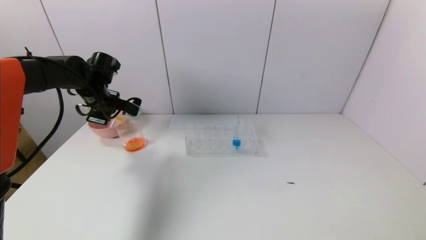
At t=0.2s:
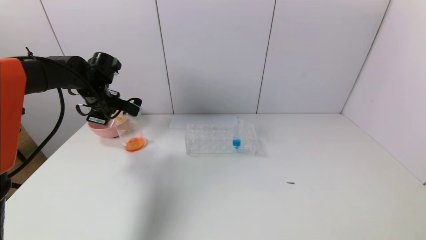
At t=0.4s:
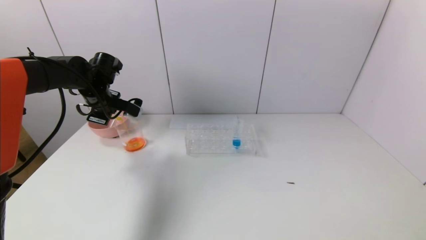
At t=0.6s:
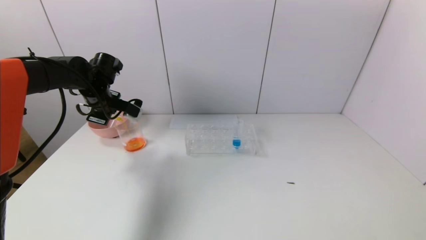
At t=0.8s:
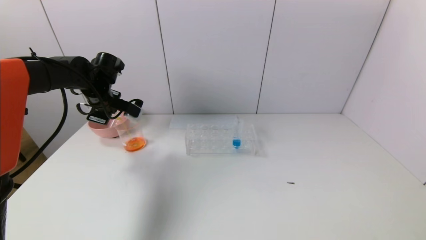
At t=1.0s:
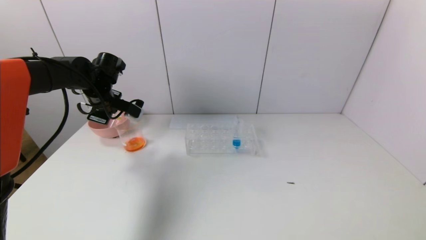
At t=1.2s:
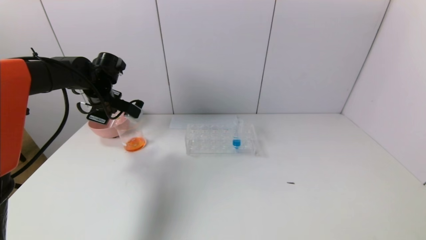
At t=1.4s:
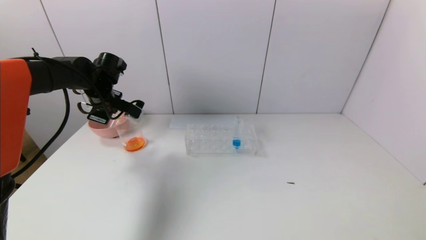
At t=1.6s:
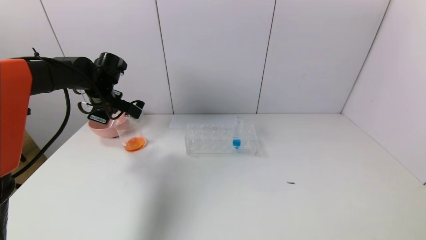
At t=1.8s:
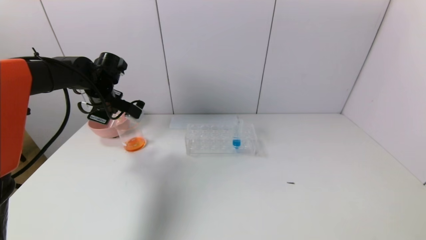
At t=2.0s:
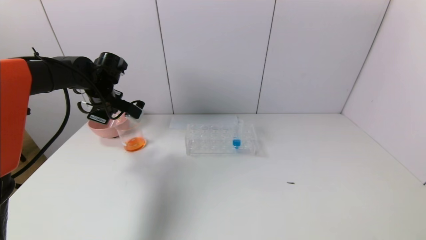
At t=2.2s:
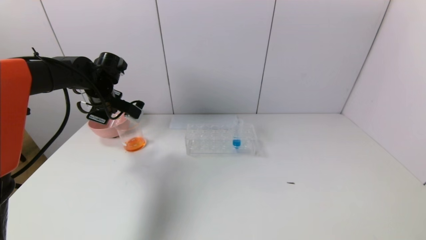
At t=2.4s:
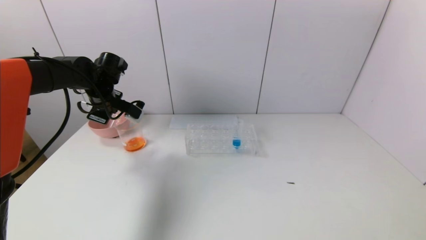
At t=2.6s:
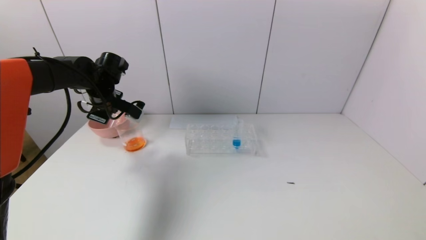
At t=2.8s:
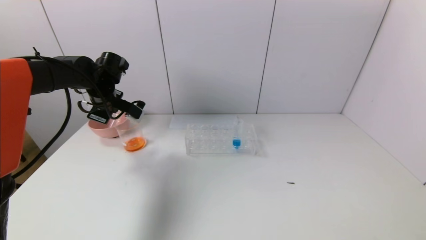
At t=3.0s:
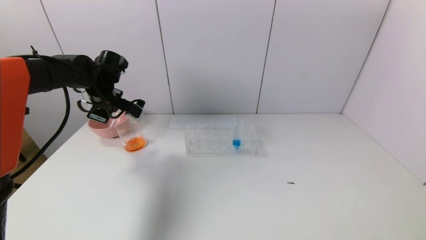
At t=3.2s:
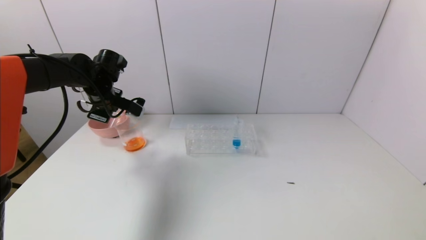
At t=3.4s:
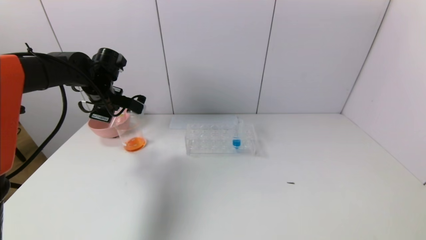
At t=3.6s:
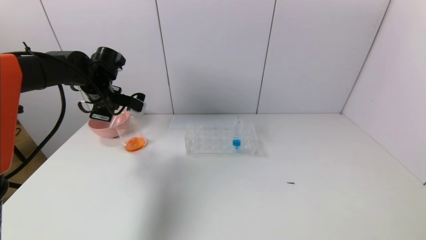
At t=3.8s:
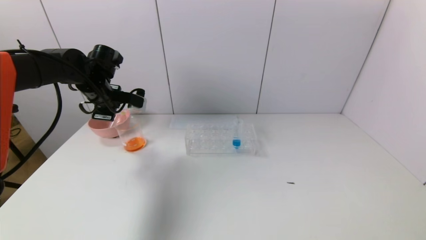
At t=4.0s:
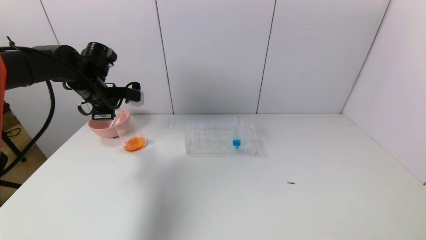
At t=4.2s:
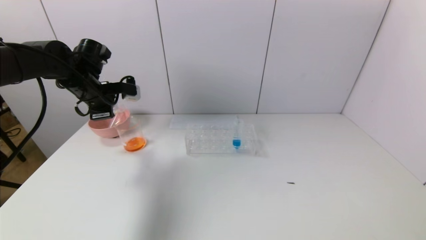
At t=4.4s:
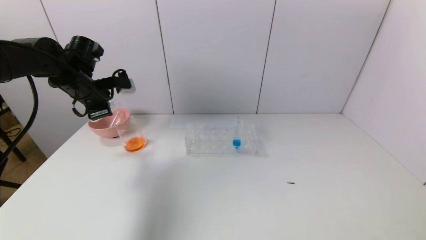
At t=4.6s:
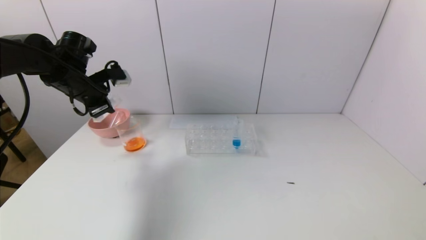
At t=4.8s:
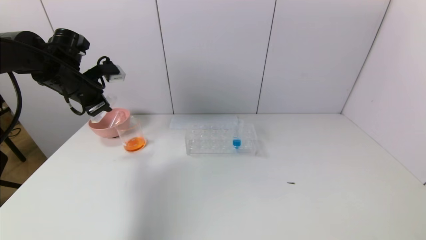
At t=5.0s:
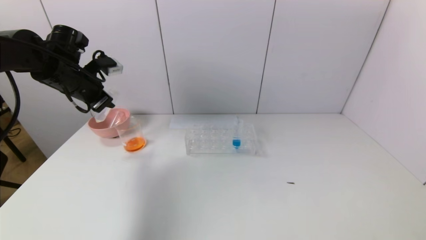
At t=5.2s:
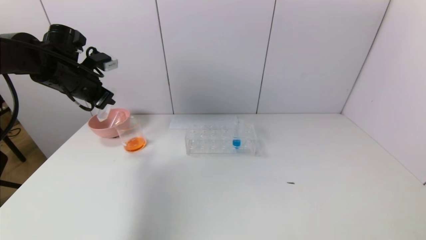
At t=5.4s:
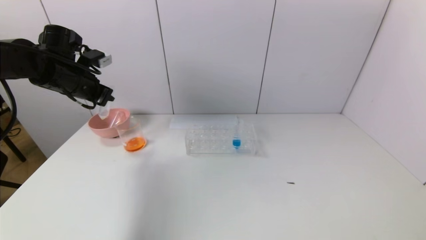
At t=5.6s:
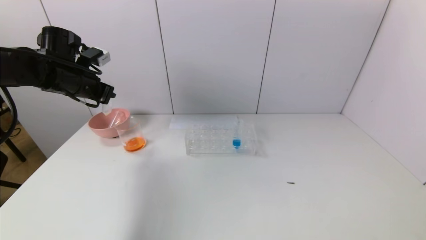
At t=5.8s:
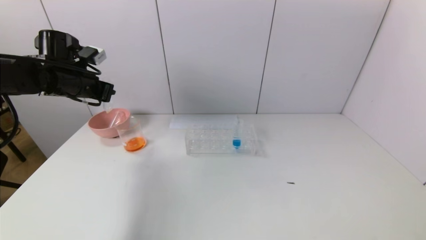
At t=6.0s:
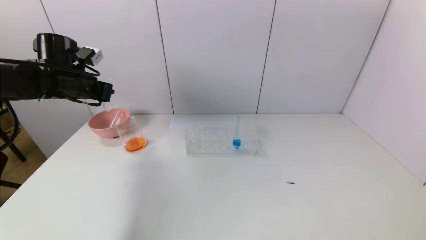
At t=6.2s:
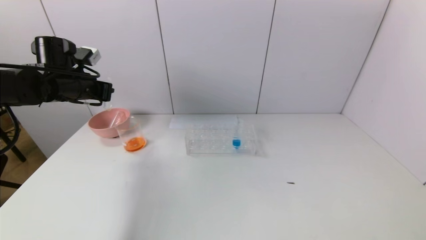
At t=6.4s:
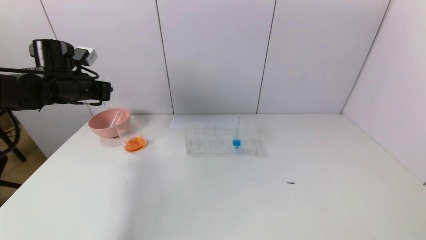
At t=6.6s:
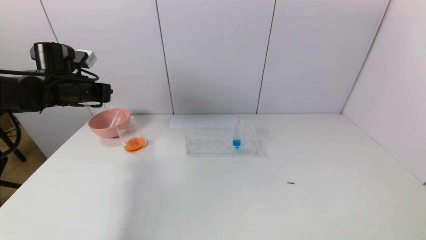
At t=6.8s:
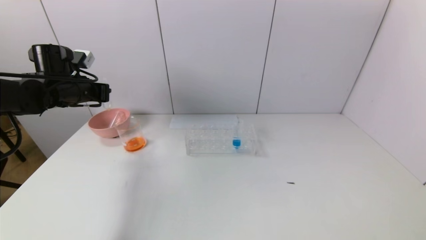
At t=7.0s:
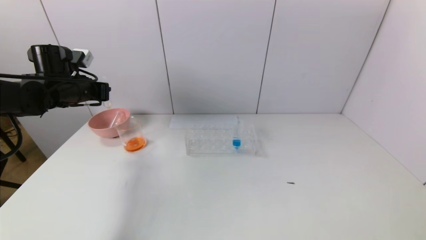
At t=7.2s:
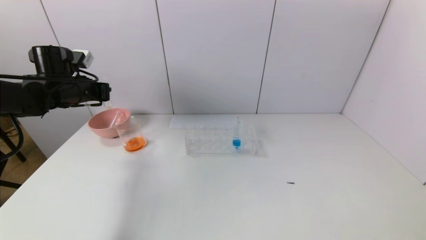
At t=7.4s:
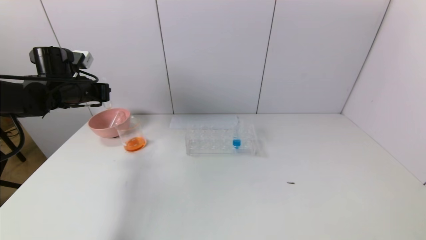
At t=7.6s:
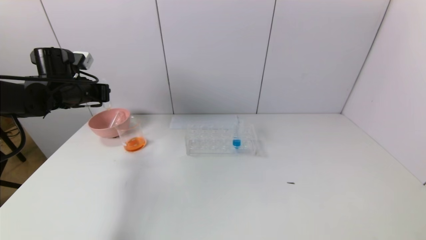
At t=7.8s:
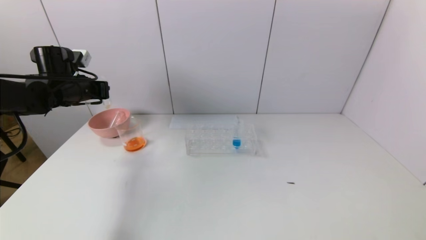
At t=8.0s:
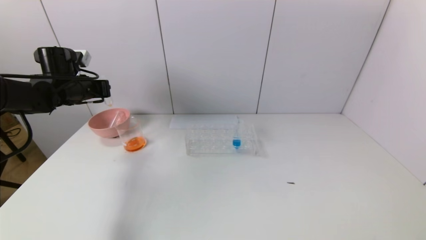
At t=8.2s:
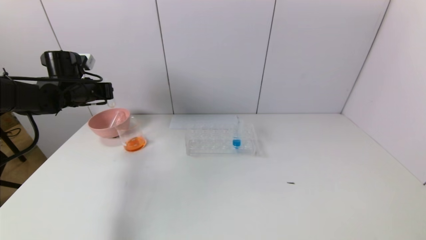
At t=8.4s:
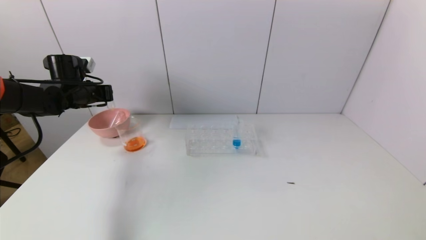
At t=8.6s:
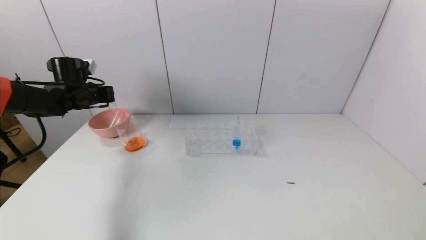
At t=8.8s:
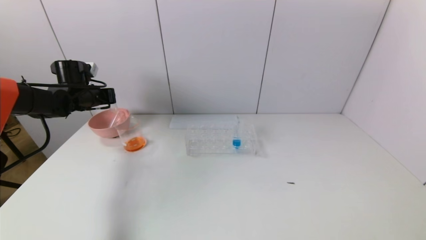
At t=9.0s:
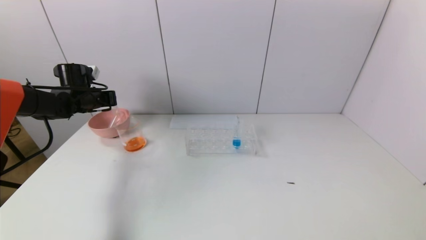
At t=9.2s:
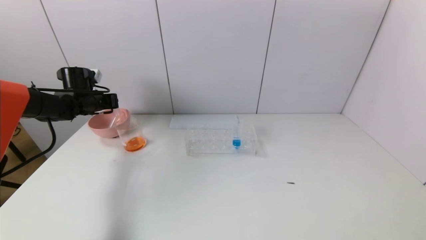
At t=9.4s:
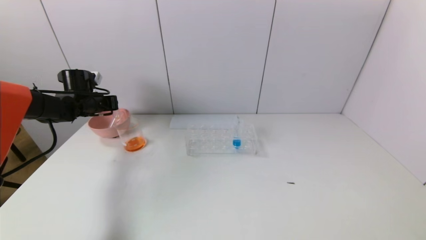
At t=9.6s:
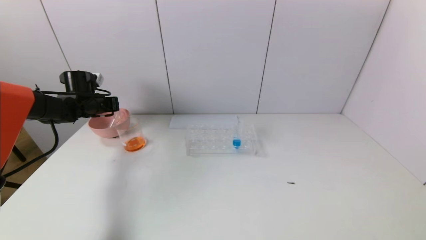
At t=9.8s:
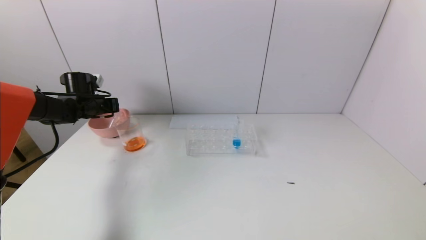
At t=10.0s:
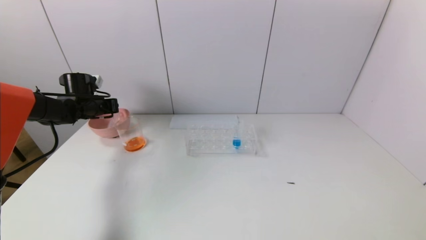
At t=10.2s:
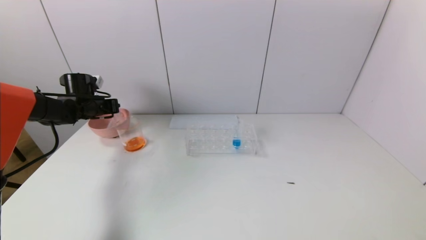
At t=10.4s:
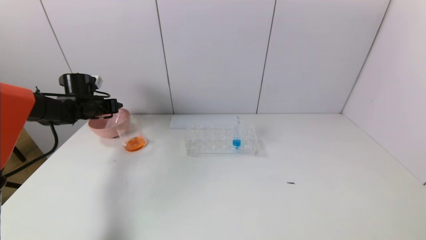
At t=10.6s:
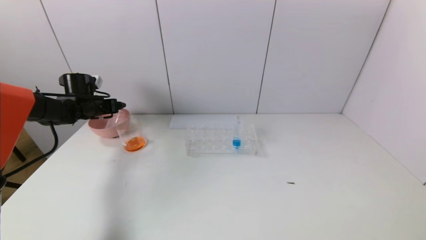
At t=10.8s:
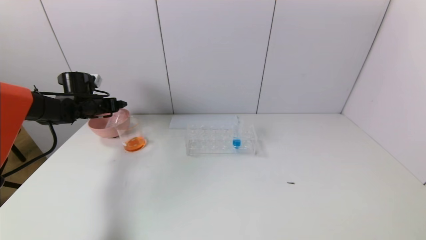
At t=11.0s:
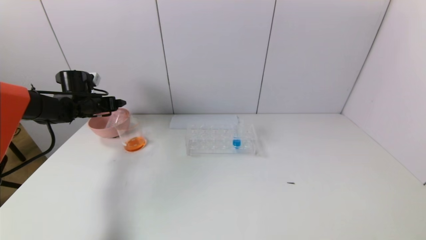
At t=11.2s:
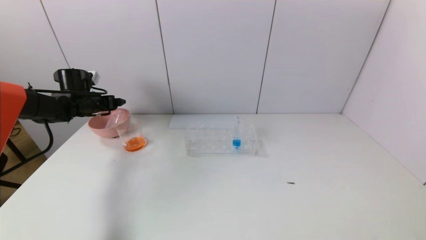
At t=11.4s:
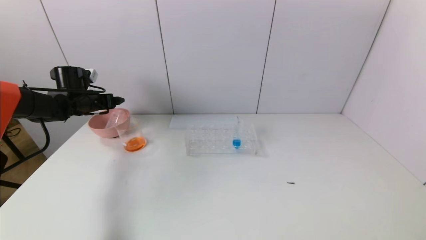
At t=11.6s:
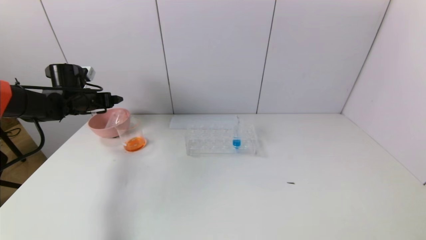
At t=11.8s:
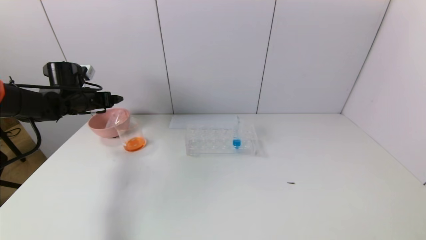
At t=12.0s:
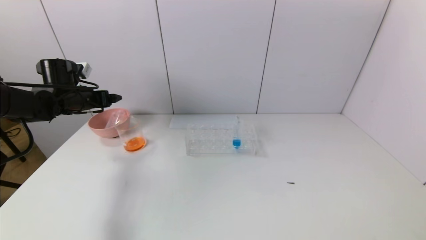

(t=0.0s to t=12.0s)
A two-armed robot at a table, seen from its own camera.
Task of the whole recording: pick up the test tube with yellow pigment and the test tube with red pigment by grippers and pour them into the beaker.
Step, t=0.0s - t=3.8s: Pour the yellow reagent into the graduated cylinder with the left gripper.
Step, t=4.0s - t=10.6s: Place the test tube into the pink bowl with the left gripper.
t=0.0s - t=1.6s: The grippers move only a little.
t=1.6s - t=3.0s: Neither gripper changes place.
t=3.0s - t=4.4s: The left gripper moves about 5 cm.
t=6.0s - t=7.6s: There are only small adjustments of the grippers.
t=7.6s - t=9.0s: The left gripper travels forward by some 5 cm.
t=9.0s - t=10.4s: The left gripper opens its fingers.
t=10.4s - t=12.0s: The left gripper is displaced backward by about 5 cm, and opens its fingers.

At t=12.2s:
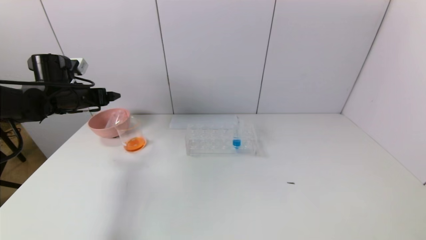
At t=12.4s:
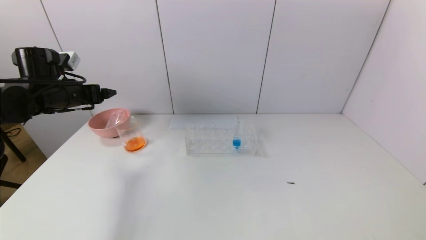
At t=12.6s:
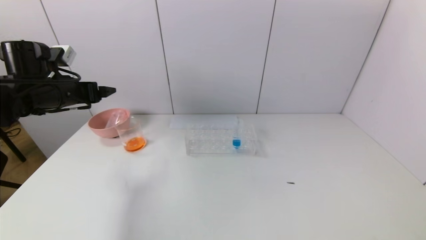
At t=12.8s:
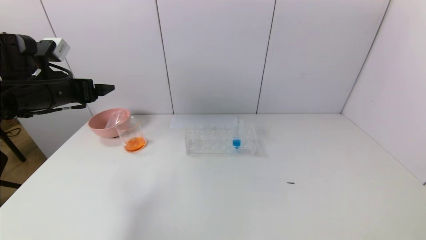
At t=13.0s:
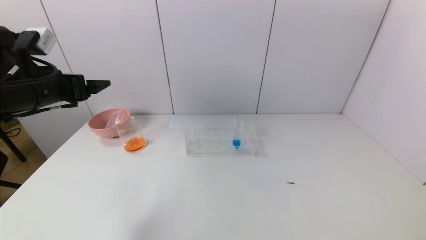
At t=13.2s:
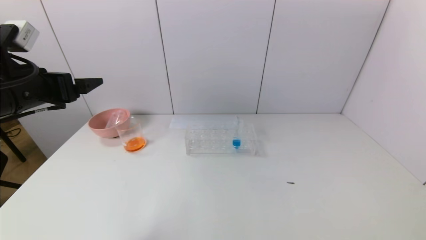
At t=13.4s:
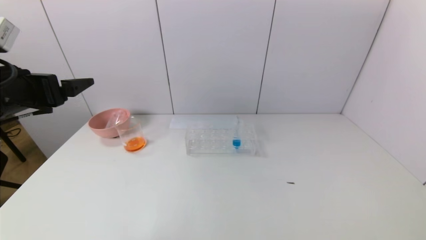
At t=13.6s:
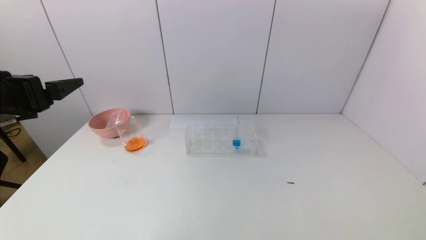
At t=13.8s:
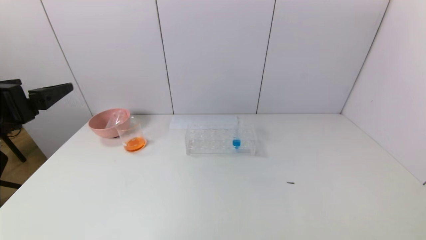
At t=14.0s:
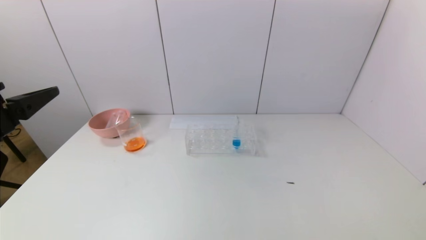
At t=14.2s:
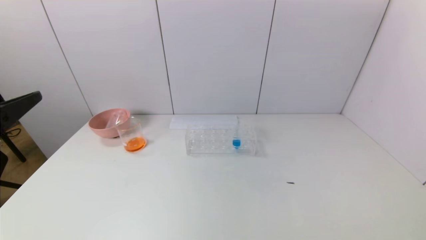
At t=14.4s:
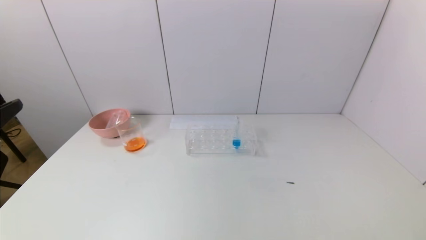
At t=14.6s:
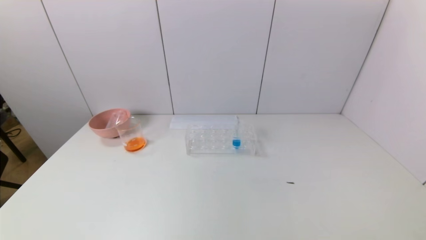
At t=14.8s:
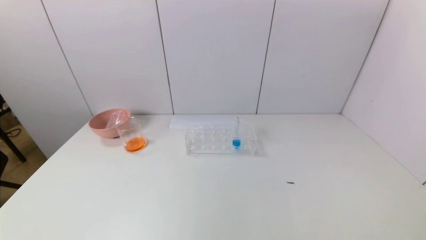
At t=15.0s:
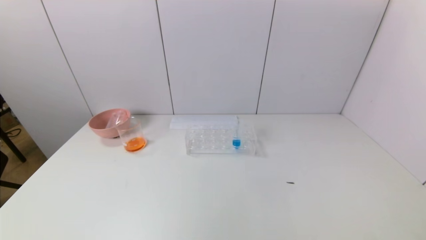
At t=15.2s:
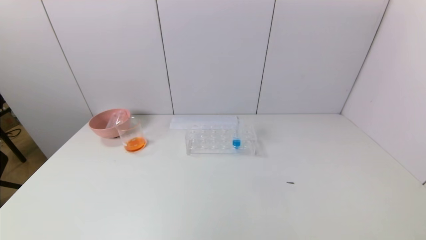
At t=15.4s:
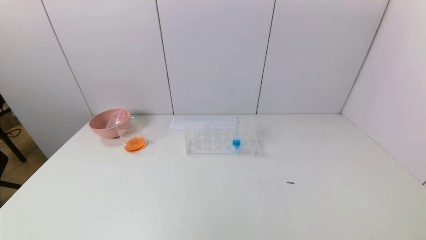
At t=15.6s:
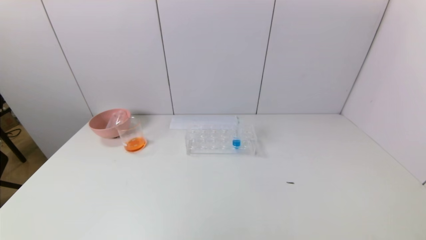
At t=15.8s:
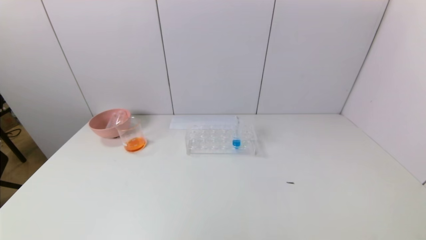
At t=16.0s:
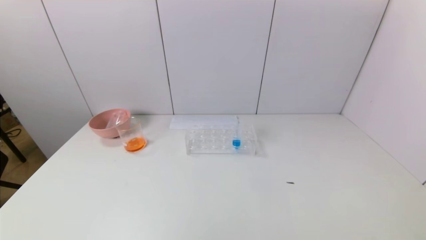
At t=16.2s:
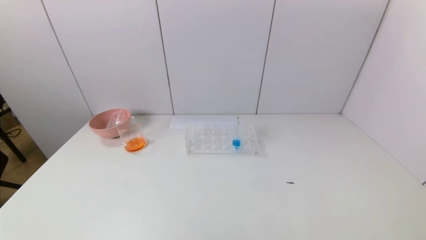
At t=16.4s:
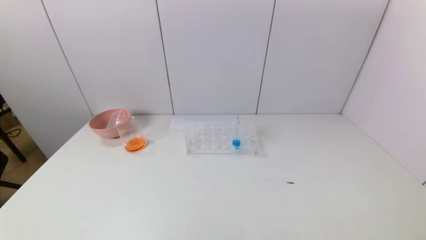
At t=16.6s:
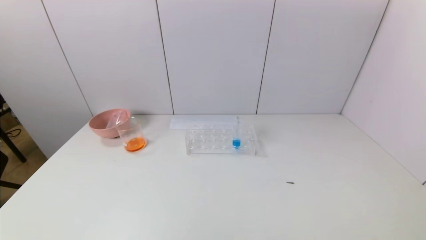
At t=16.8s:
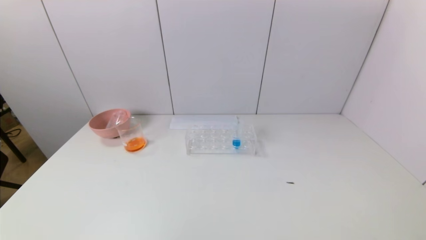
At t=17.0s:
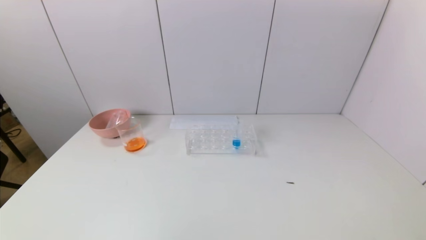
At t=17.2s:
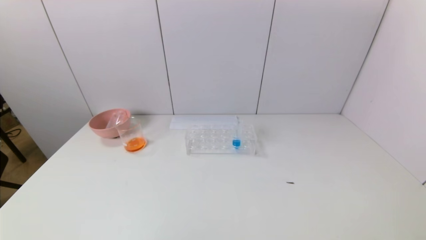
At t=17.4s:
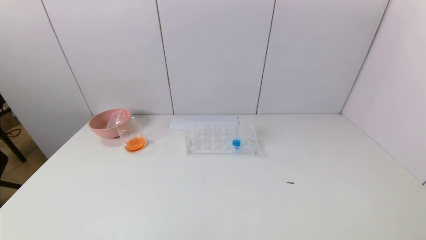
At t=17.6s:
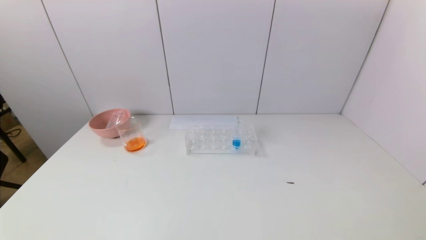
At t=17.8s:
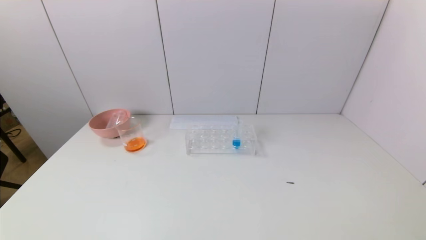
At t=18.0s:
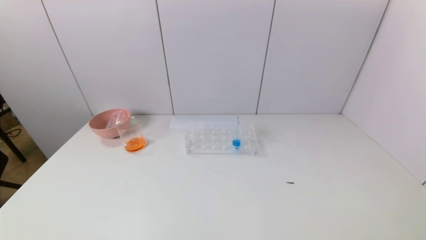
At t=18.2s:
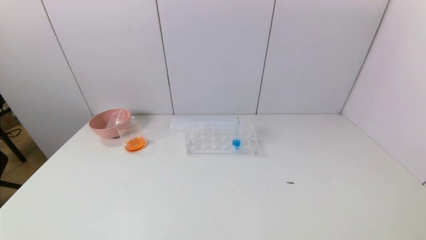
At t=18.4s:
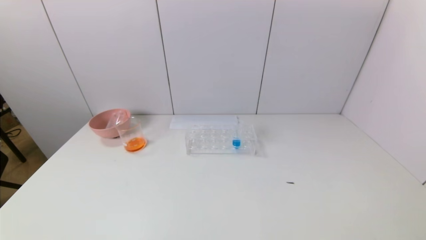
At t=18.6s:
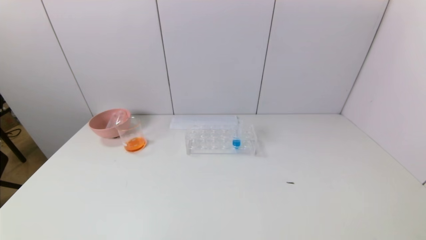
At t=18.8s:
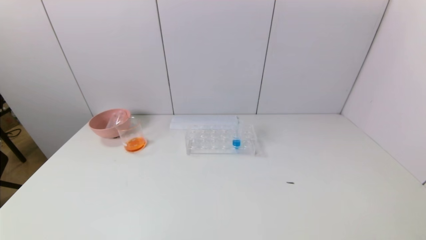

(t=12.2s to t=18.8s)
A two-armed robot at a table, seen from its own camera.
Task of the whole recording: pick up the test tube with yellow pigment and the test tube with red pigment by grippers and pour them into the beaker.
t=12.2s - t=13.8s: The left gripper travels backward by roughly 25 cm.
t=13.8s - t=15.4s: The left gripper travels backward by roughly 15 cm.
